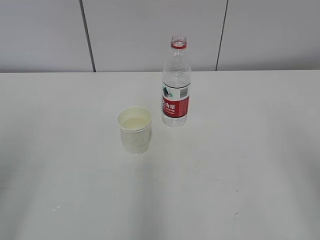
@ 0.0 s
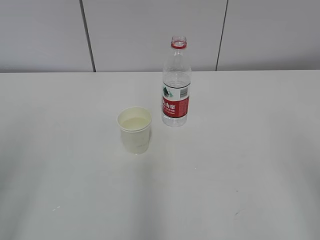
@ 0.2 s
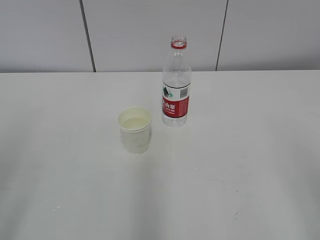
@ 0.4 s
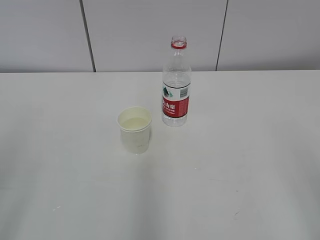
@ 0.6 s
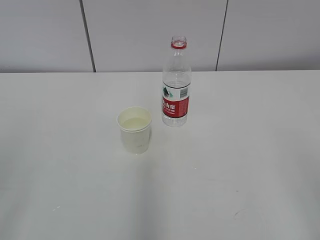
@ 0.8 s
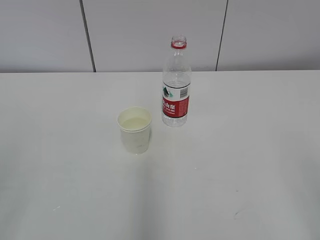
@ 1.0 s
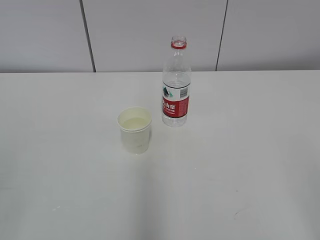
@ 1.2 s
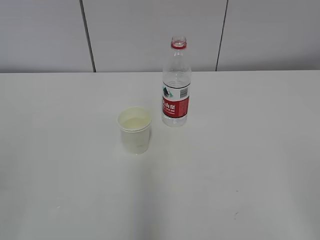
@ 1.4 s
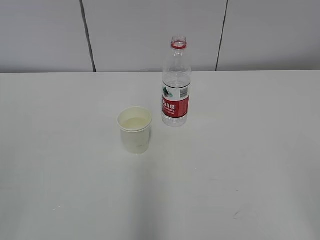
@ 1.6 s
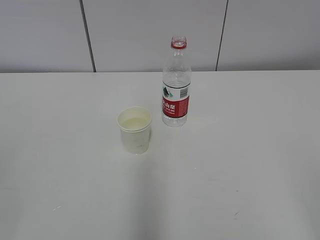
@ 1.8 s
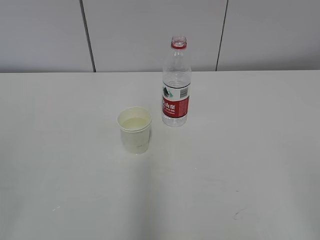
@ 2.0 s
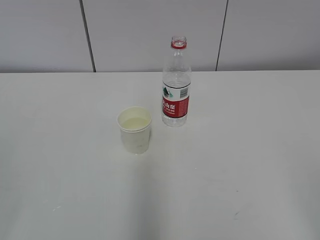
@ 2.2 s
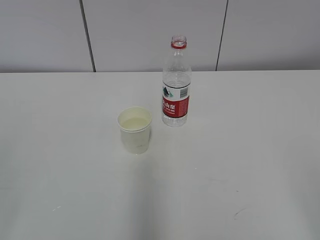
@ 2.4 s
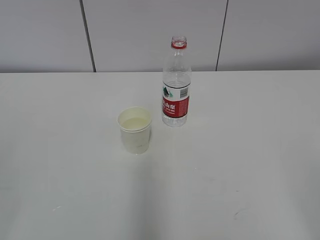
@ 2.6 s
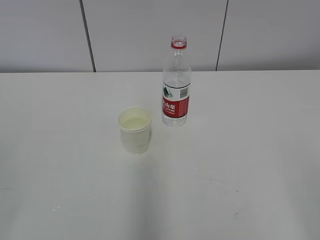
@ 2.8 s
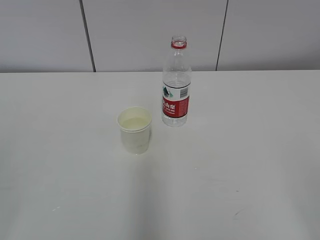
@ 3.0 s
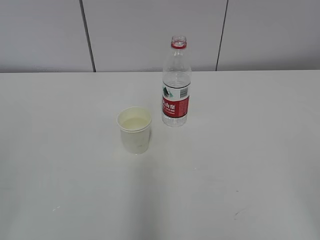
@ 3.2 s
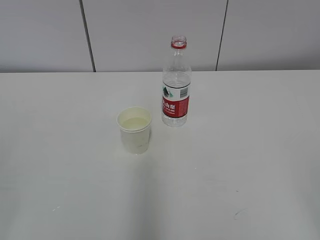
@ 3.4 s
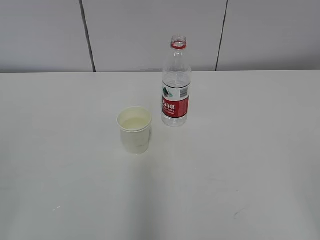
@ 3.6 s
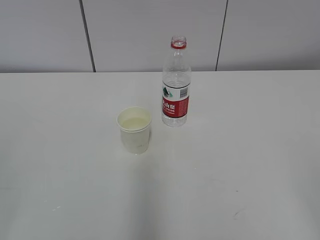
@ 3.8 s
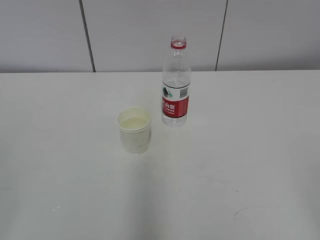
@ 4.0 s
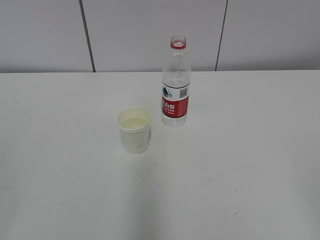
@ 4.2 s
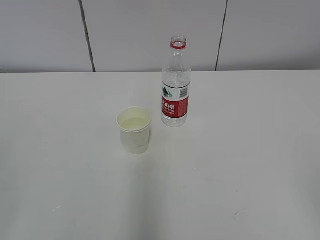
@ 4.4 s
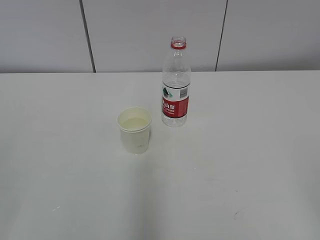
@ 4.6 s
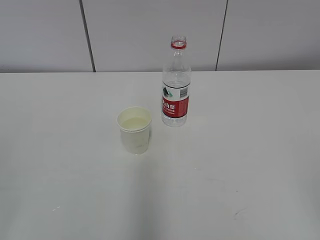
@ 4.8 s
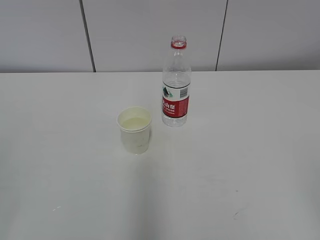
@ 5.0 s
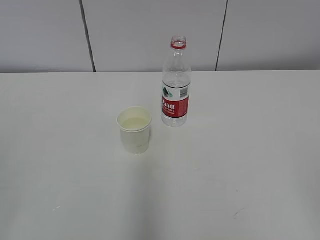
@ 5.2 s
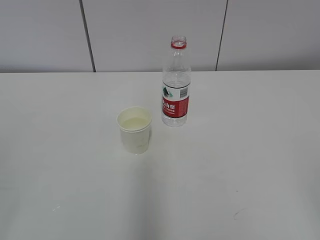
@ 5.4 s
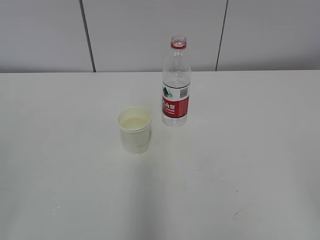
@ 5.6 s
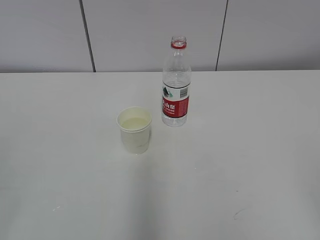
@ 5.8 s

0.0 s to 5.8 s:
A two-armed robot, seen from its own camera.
4.4 to 5.8 s: The two grippers keep their place.

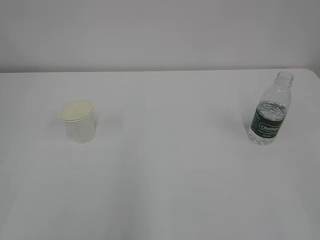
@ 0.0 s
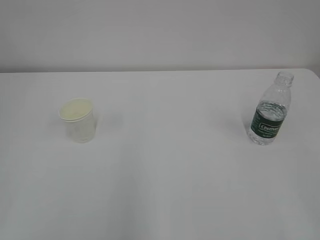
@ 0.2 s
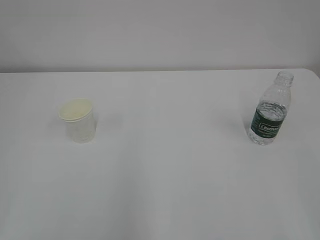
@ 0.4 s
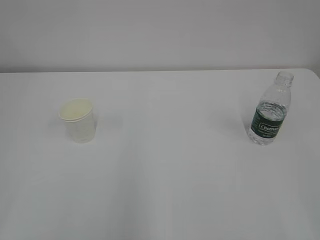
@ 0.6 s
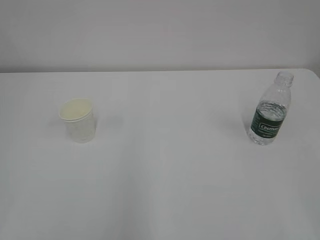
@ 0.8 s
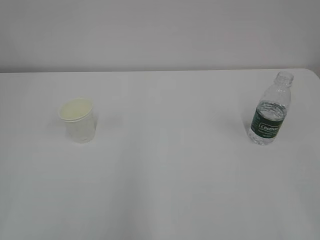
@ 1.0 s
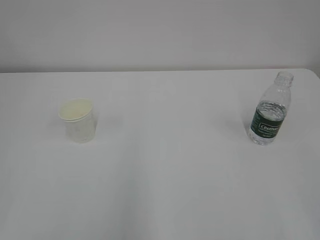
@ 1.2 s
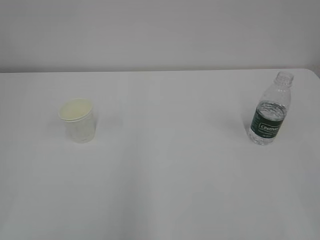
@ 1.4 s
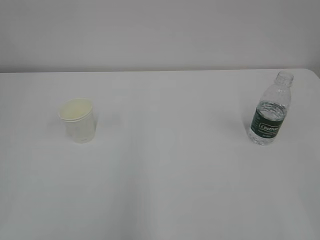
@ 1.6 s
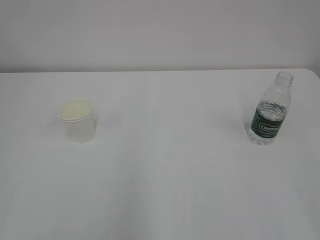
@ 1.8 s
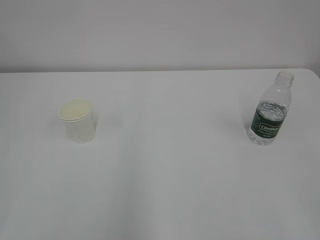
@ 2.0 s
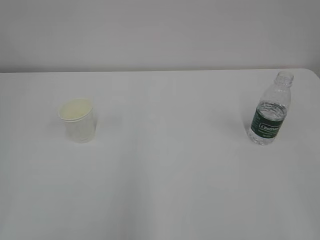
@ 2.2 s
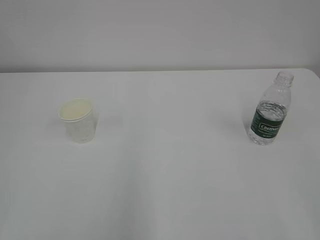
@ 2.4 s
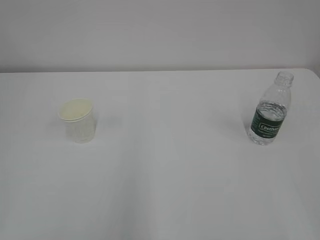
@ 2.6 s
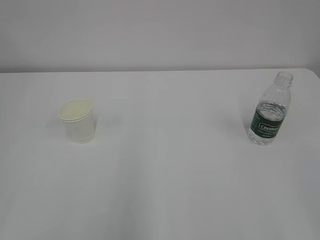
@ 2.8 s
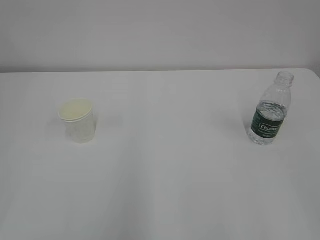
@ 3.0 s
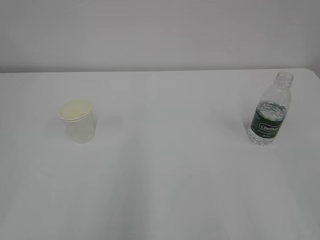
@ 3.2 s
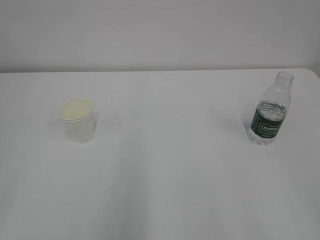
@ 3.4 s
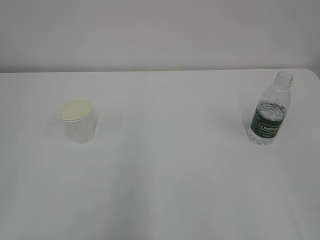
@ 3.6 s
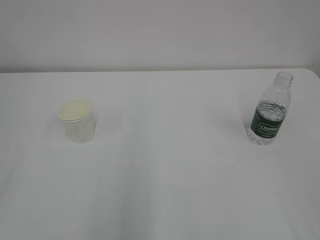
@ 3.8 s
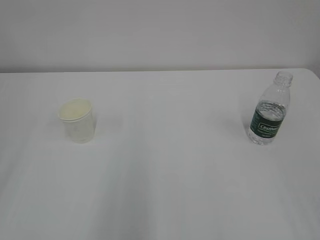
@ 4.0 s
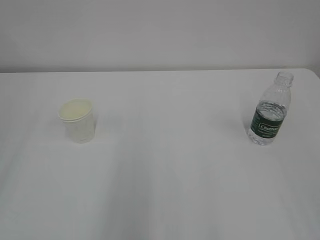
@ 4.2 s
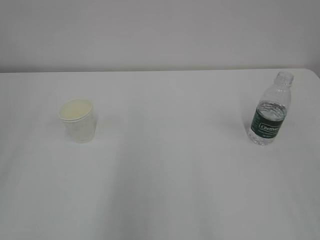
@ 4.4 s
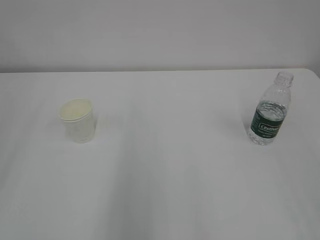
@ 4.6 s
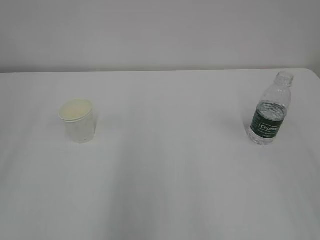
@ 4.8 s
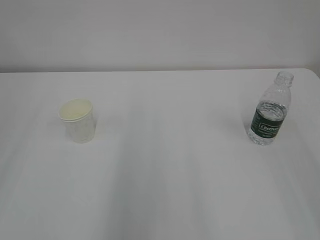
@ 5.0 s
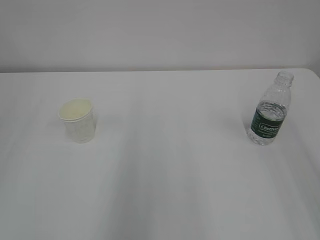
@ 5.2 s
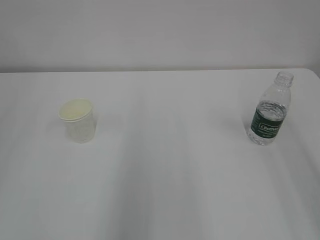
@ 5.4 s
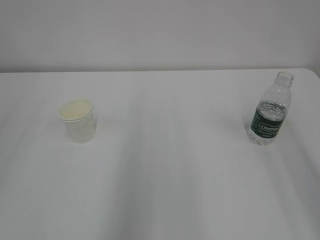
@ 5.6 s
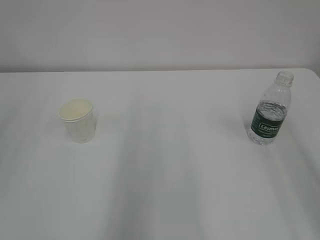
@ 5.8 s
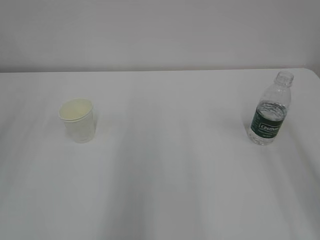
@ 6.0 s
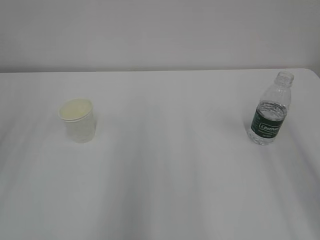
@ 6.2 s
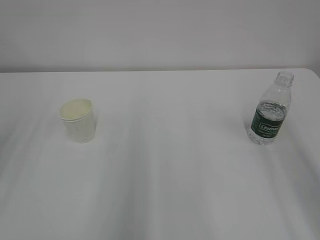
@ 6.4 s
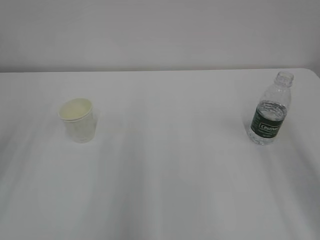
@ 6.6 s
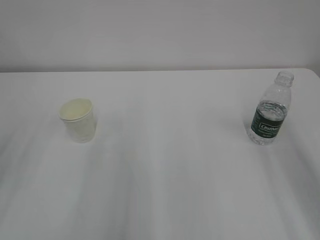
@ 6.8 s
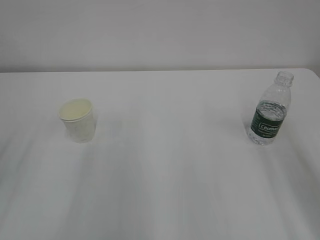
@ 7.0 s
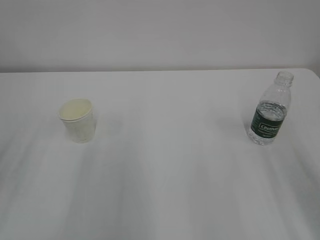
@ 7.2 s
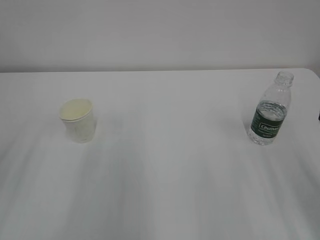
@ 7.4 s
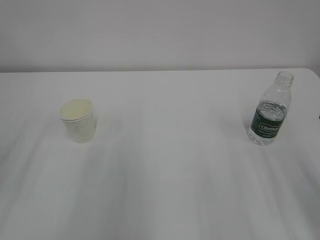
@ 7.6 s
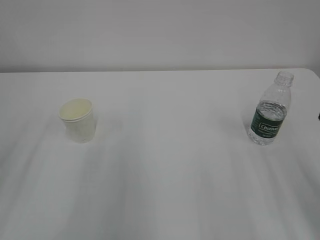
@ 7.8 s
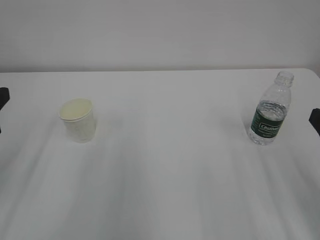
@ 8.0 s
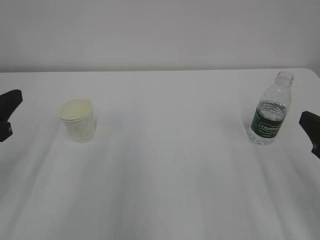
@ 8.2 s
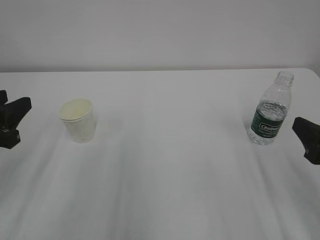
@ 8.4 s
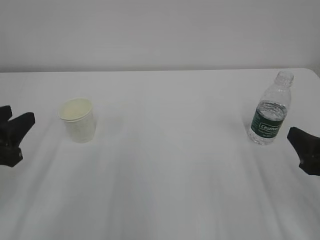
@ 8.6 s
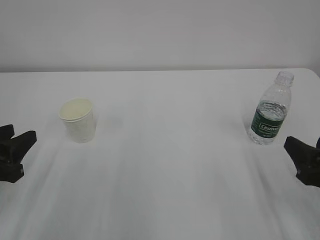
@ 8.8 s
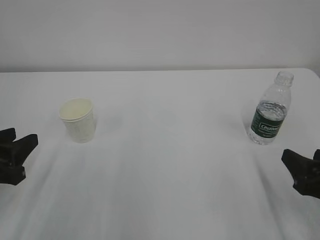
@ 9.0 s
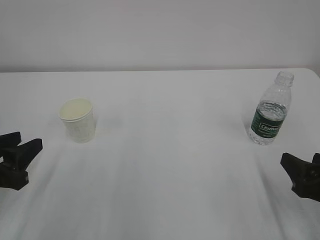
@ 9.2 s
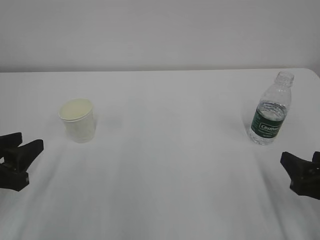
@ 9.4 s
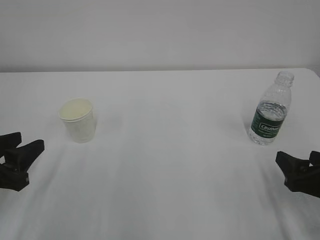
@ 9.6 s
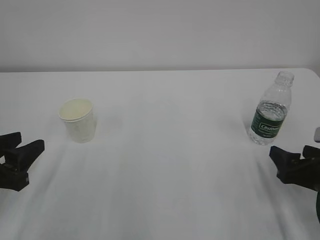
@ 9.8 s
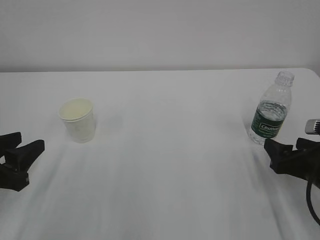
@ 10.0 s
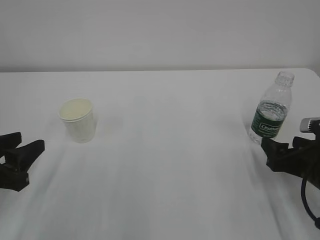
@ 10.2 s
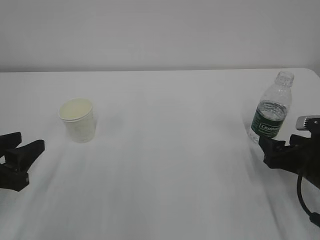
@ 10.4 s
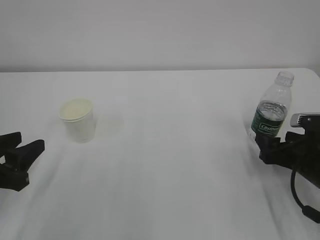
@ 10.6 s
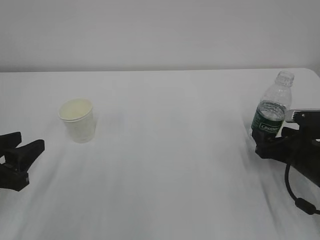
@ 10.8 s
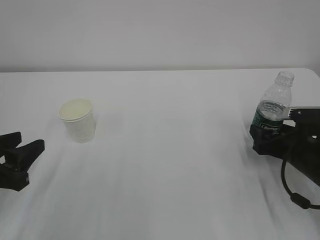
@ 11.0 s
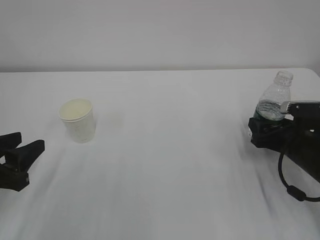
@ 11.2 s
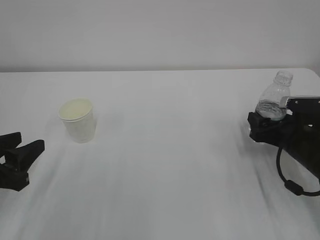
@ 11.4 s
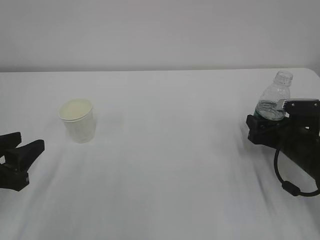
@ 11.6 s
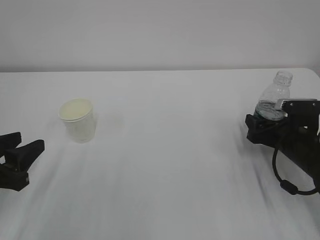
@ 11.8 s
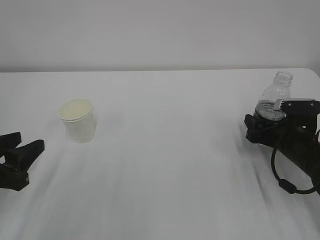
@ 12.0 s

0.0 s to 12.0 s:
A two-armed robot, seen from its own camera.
7.6 to 9.0 s: Both grippers travel together downward, roughly 10 cm.
9.0 to 10.4 s: The right gripper shifts roughly 10 cm forward.
10.4 to 12.0 s: The right gripper is displaced forward by some 5 cm.

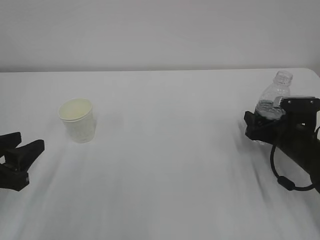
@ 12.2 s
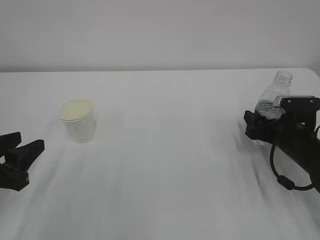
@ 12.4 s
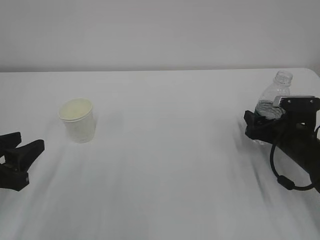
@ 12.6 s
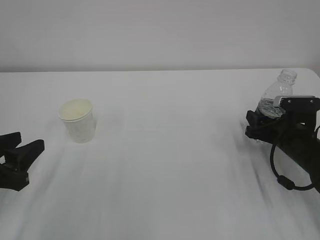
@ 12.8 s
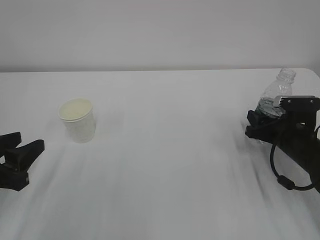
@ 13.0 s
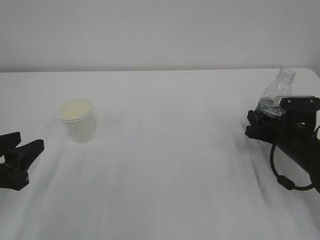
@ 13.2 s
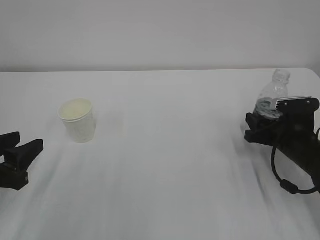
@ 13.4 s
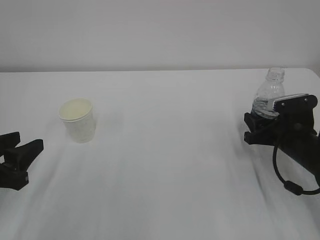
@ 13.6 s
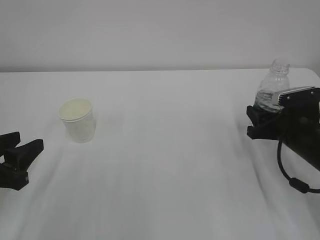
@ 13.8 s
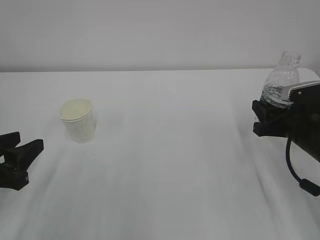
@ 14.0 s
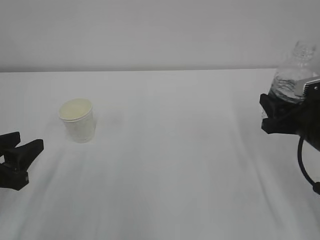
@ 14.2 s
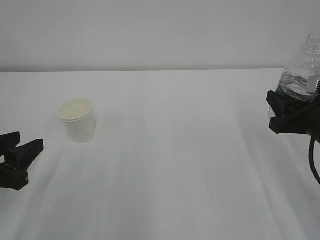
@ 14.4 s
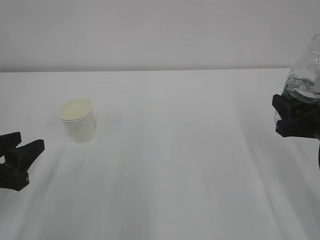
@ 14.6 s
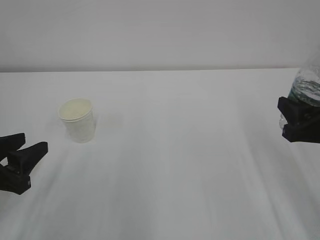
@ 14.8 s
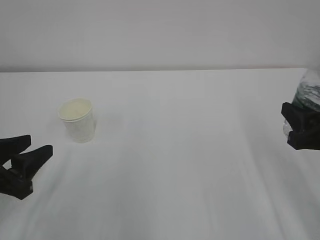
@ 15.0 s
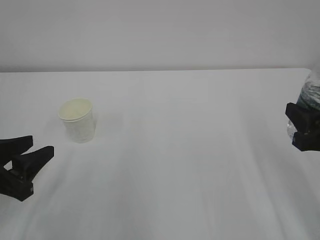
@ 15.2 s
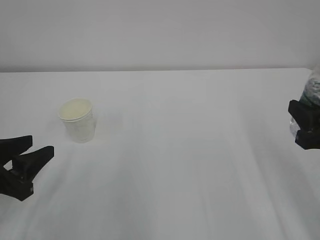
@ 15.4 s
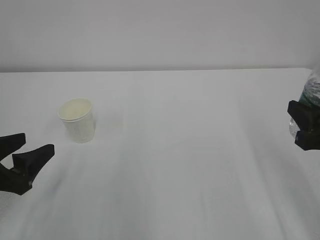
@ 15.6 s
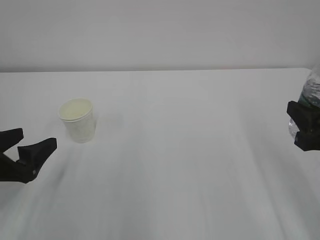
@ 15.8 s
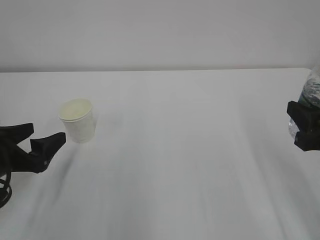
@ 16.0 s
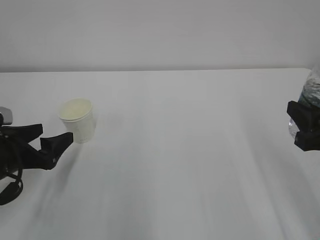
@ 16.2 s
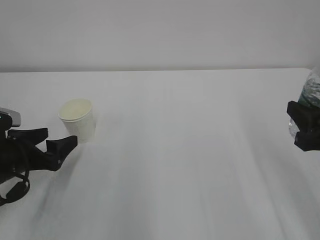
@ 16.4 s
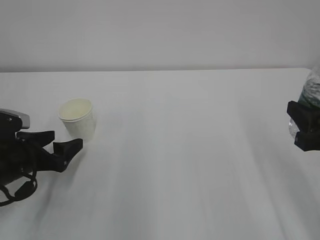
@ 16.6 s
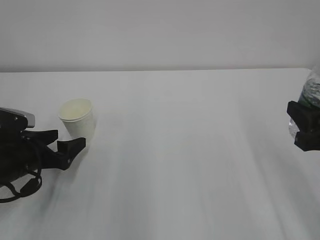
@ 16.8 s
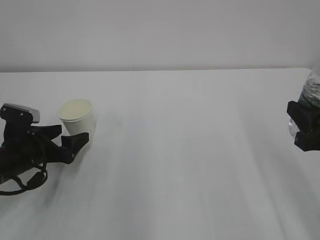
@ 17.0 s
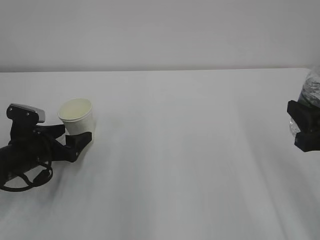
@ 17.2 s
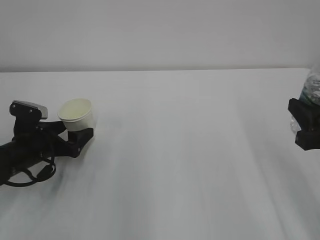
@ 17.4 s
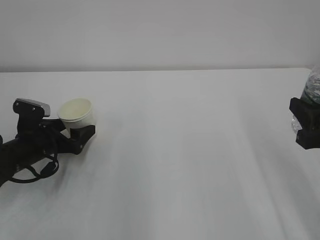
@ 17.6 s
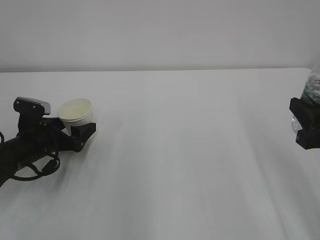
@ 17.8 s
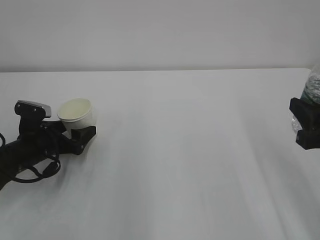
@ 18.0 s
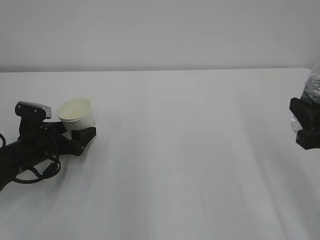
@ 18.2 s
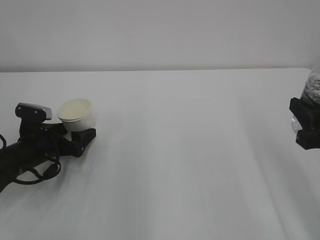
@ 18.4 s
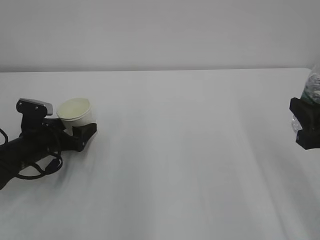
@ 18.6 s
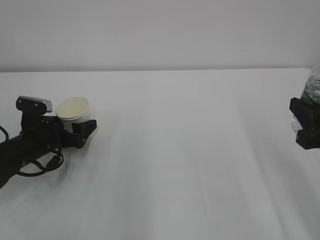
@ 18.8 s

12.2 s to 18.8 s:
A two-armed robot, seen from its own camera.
12.2 to 13.8 s: The right gripper closes up.
13.8 to 15.4 s: The right gripper shifts about 15 cm backward and upward.
15.4 to 17.2 s: The left gripper travels forward and downward by about 15 cm, and opens its fingers.
17.2 to 18.8 s: The grippers make only small movements.
